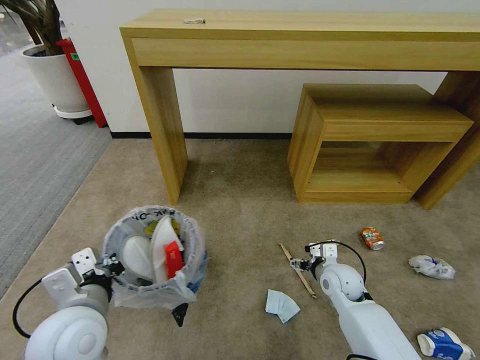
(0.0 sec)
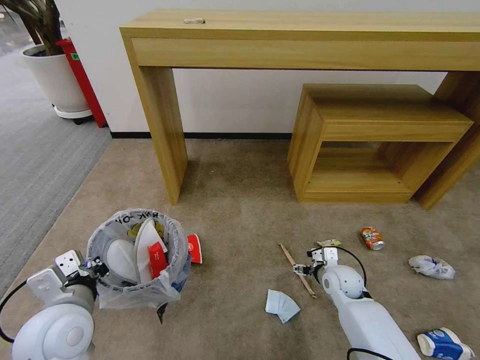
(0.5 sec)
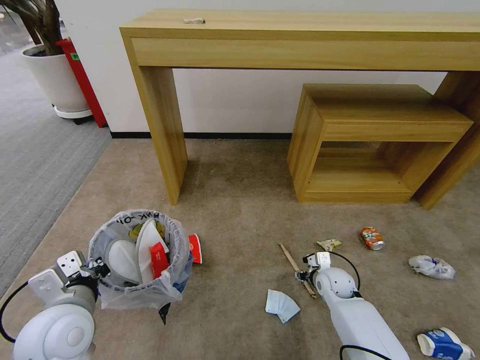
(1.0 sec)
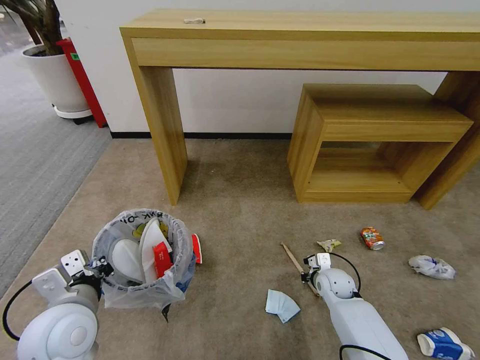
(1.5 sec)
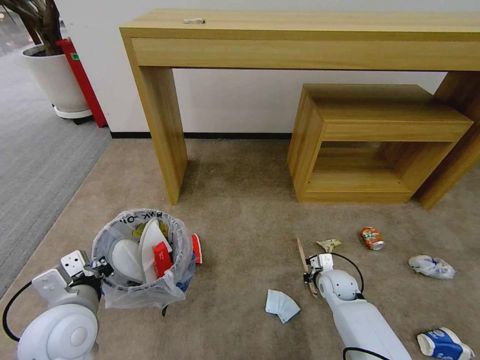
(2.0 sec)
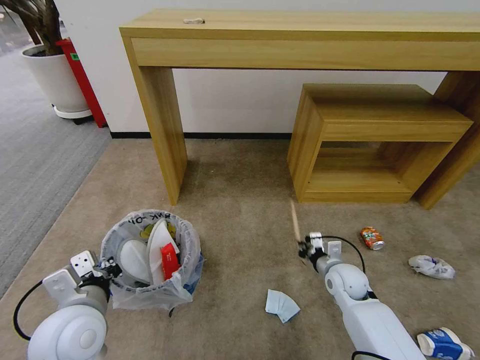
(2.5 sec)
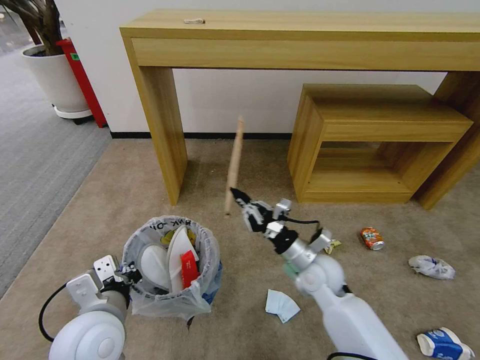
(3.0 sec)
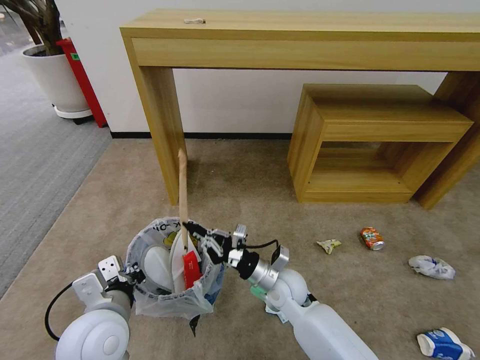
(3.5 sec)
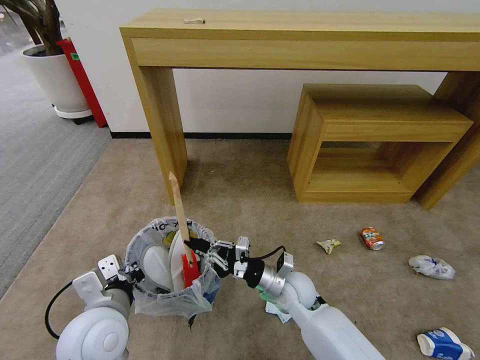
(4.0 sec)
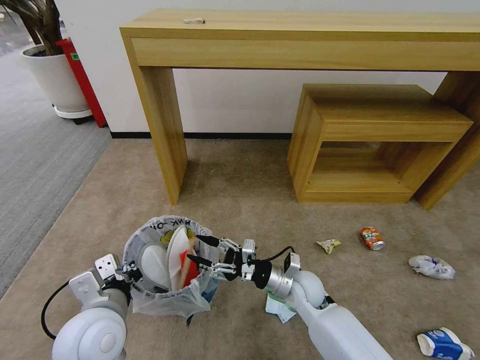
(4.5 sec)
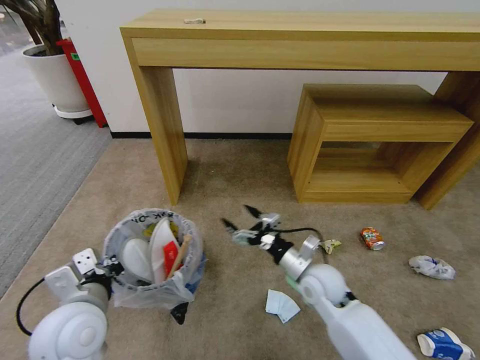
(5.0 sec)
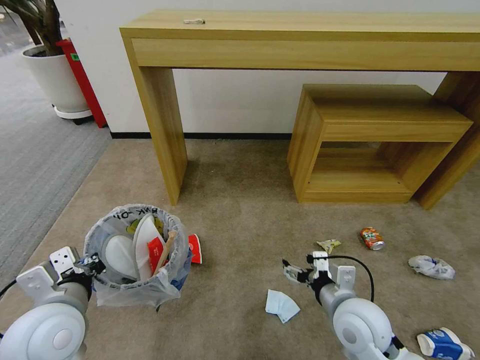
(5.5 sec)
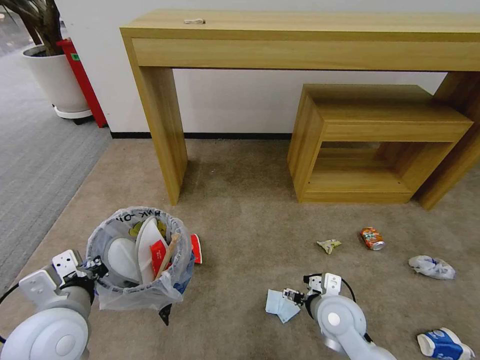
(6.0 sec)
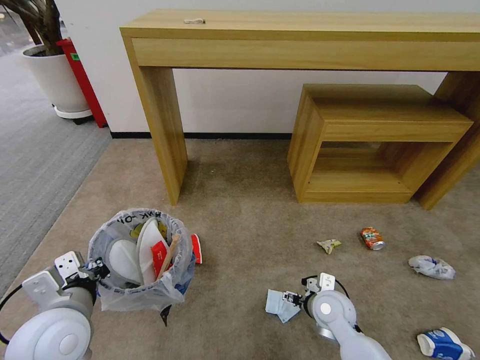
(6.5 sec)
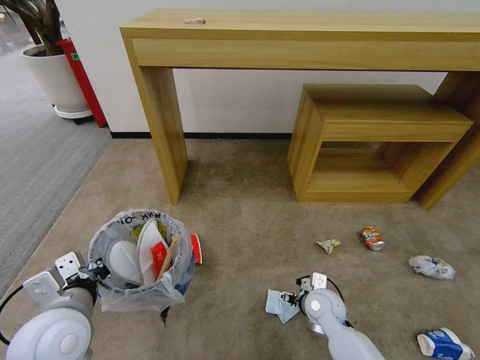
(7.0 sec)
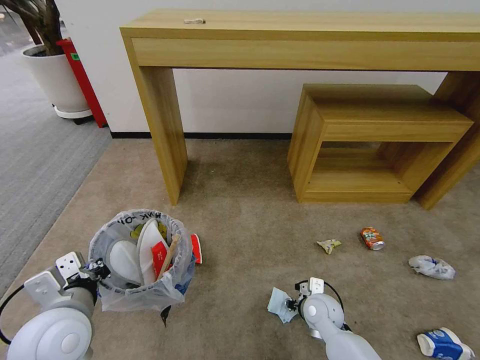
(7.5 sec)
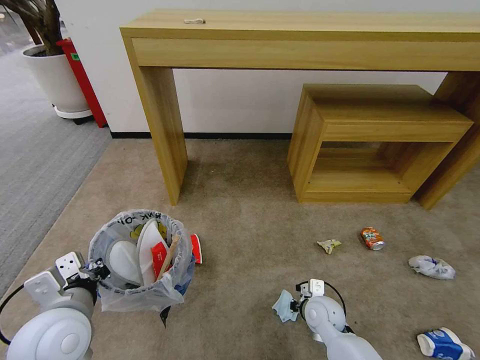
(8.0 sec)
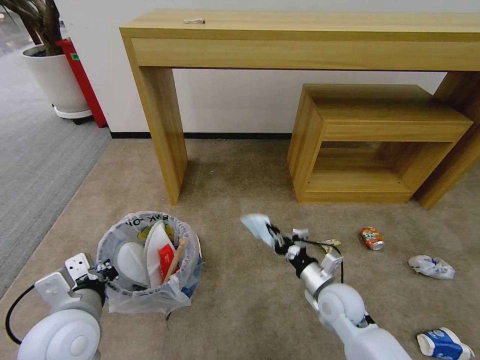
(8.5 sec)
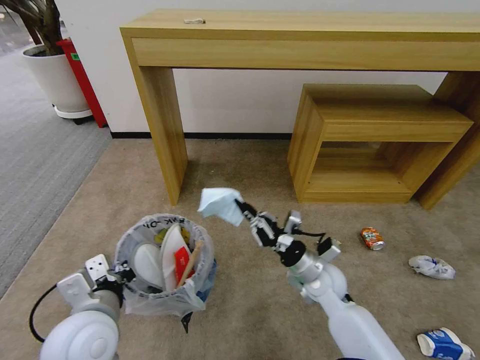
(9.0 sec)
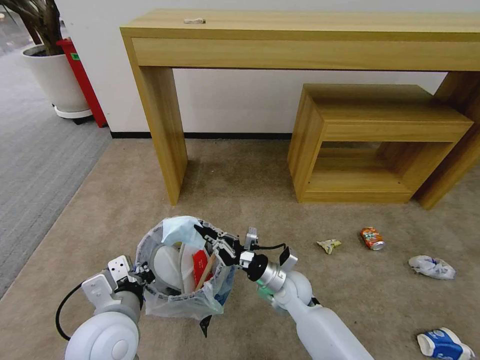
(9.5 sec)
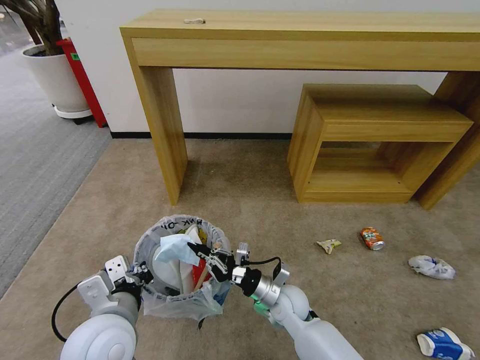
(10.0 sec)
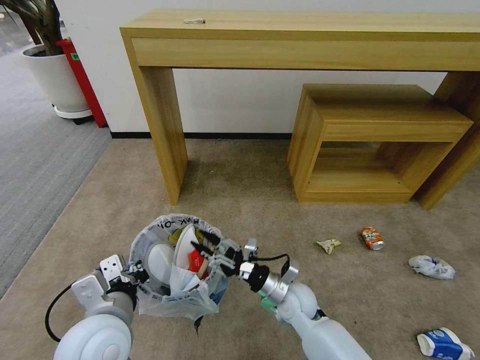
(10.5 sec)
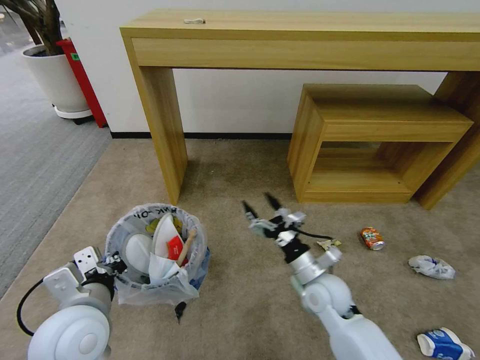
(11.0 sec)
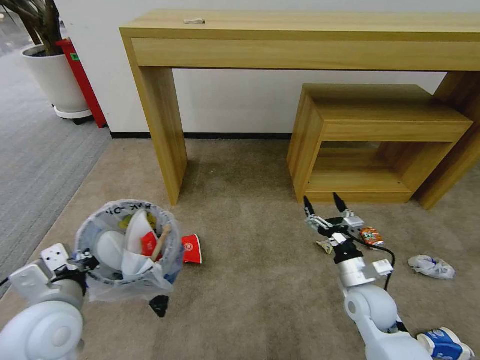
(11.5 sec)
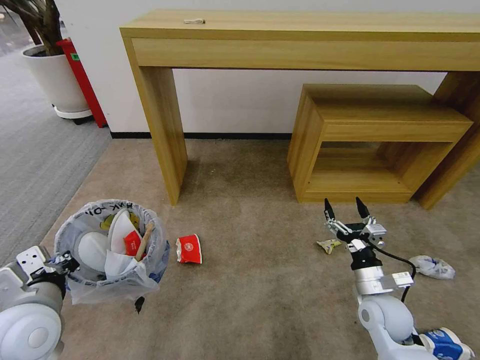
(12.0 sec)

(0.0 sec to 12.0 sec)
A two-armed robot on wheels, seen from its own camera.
Task of the whole recording: Pick up the trash bin and place the garbage on the floor into it.
0.0 sec - 2.0 sec: The right gripper heads downward, covering roughly 10 cm, and closes up.
2.0 sec - 4.0 sec: The right gripper is displaced to the left and upward by roughly 20 cm. Meanwhile the left gripper changes place by about 5 cm.
4.0 sec - 6.0 sec: The left gripper ends up roughly 5 cm from where it was, while the right gripper shifts some 10 cm to the right and backward, and opens.
6.0 sec - 8.0 sec: The right gripper goes roughly 10 cm downward, and closes.
8.0 sec - 10.0 sec: The right gripper travels to the left by about 10 cm. Meanwhile the left gripper goes about 5 cm to the right.
10.0 sec - 12.0 sec: The right gripper goes roughly 20 cm to the right, and opens. Meanwhile the left gripper goes about 10 cm to the left.

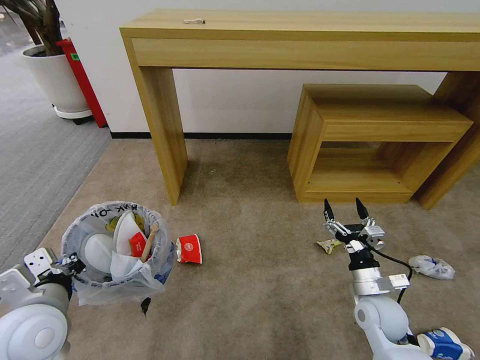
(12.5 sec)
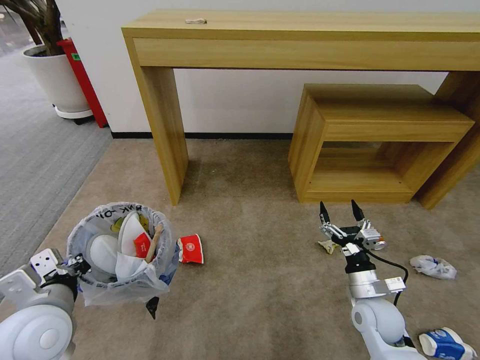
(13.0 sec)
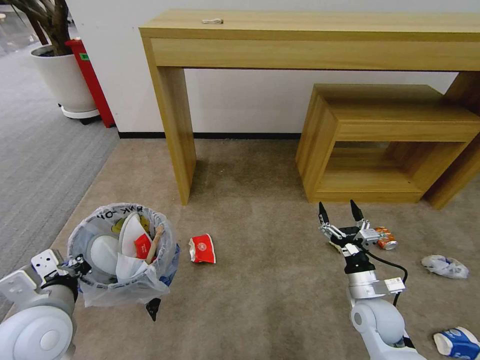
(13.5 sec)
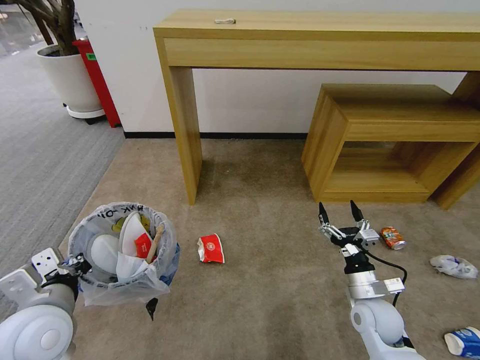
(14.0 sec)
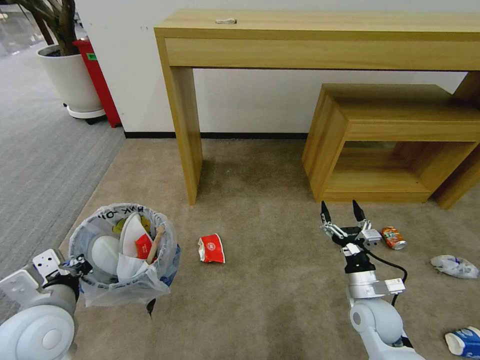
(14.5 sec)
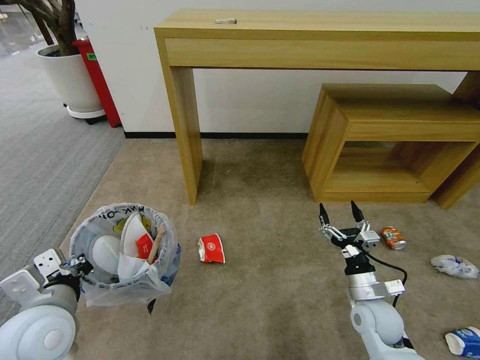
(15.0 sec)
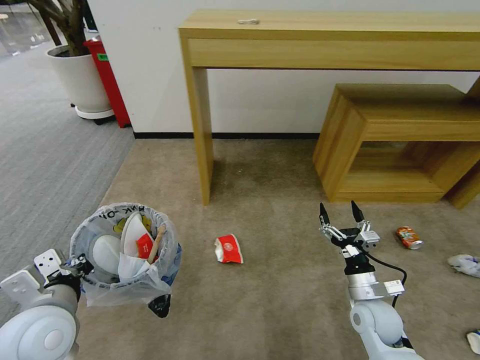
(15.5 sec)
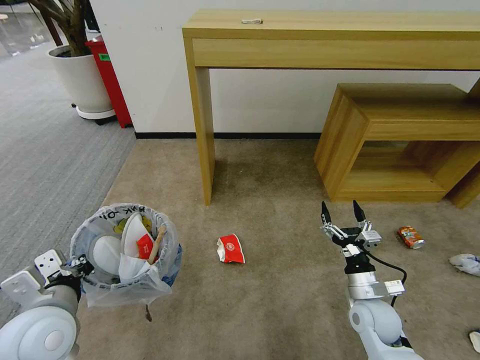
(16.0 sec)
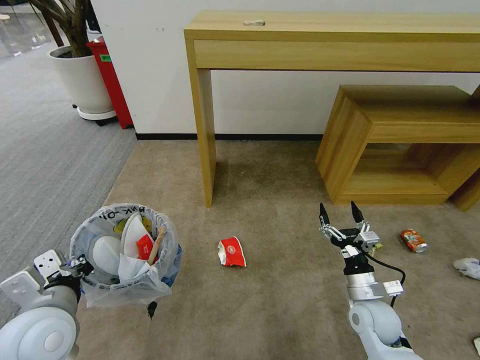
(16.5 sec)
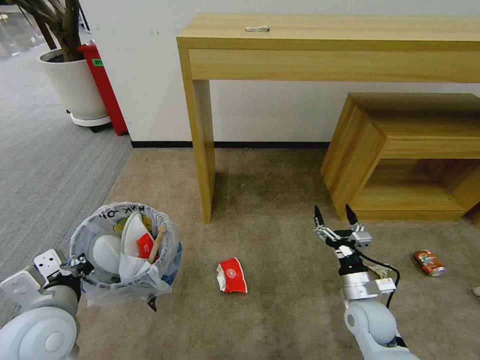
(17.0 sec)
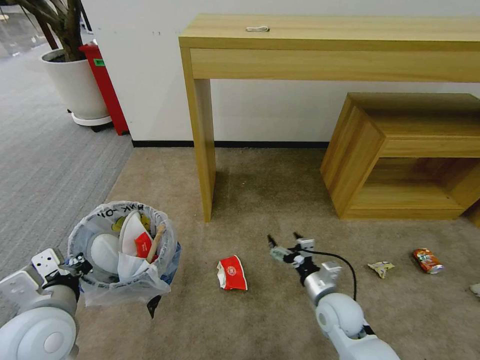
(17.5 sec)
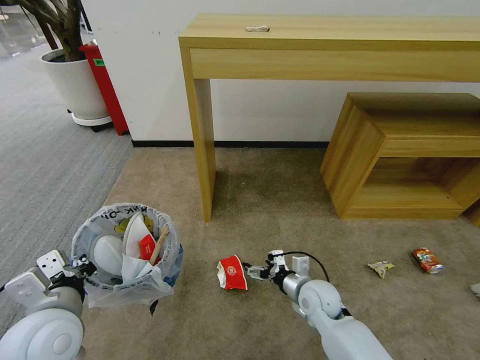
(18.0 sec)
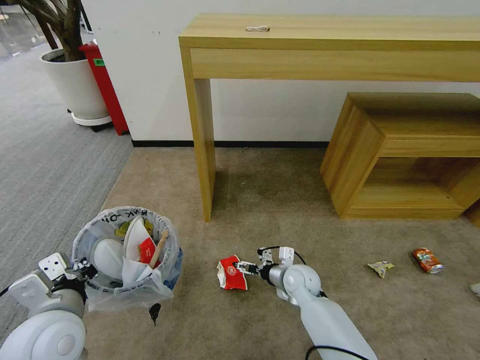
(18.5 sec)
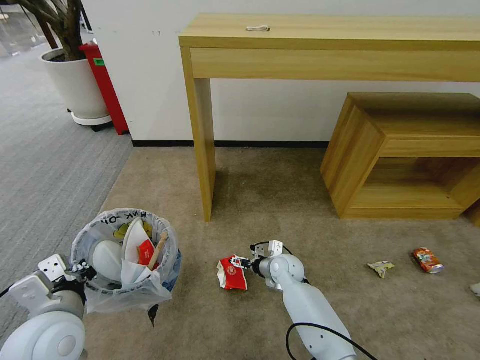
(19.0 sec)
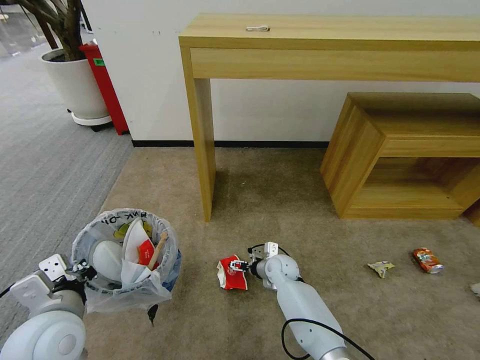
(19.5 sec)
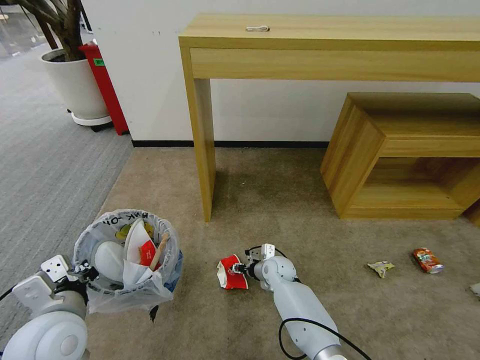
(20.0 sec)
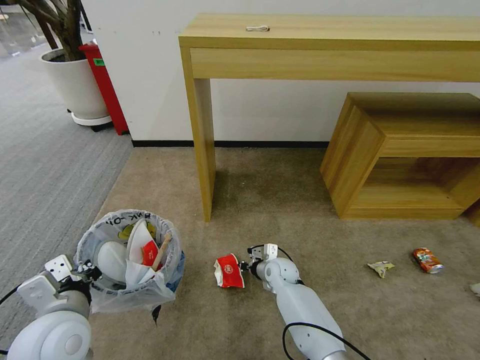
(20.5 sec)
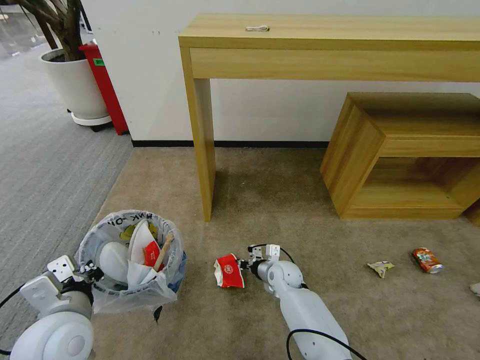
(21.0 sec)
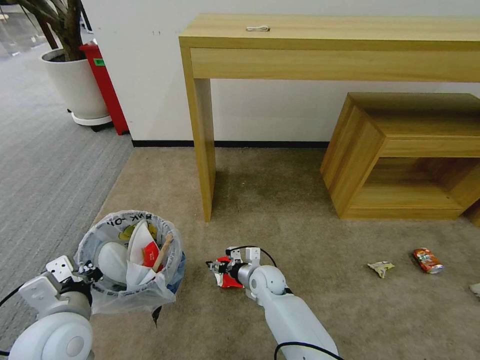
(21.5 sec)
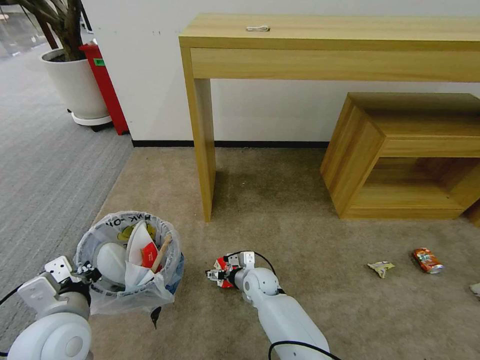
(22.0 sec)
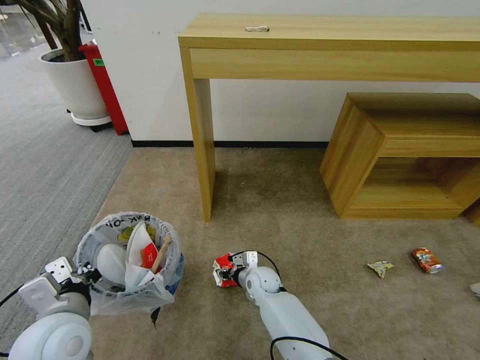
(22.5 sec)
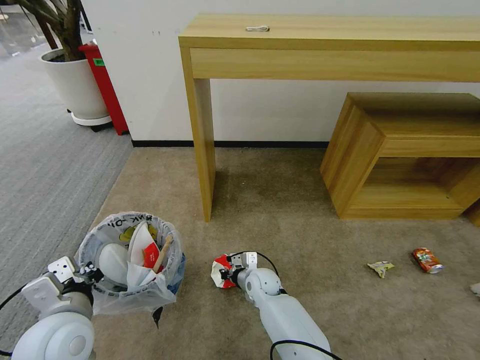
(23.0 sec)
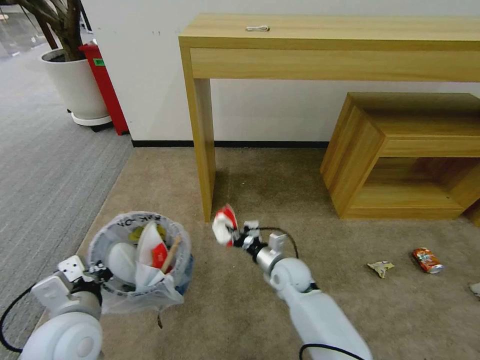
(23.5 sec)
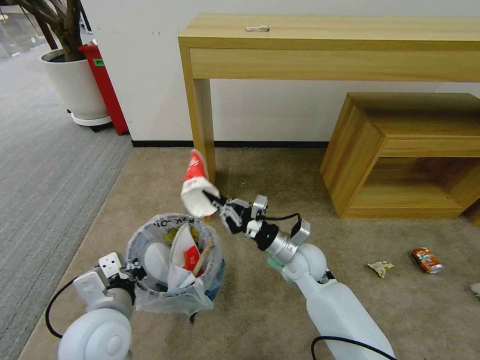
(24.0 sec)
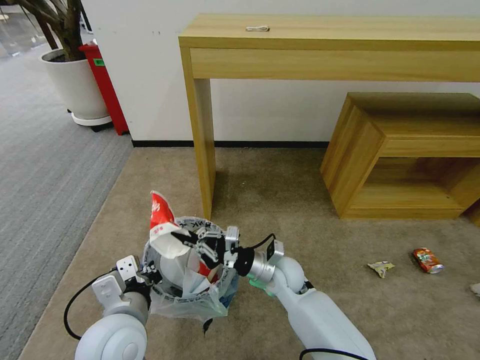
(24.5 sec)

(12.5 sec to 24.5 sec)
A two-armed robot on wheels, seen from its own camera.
Task of the whole recording: Pick up the trash bin and place the garbage on the floor into it.
14.5 sec - 16.5 sec: Neither gripper changes place.
16.5 sec - 18.5 sec: The right gripper goes roughly 20 cm to the left and forward.
18.5 sec - 20.5 sec: The right gripper travels downward by about 5 cm, and closes its fingers.
20.5 sec - 22.5 sec: The right gripper travels to the left by some 5 cm, and opens up.
22.5 sec - 24.5 sec: The right gripper shifts about 10 cm upward, and closes. The left gripper shifts roughly 10 cm to the right.

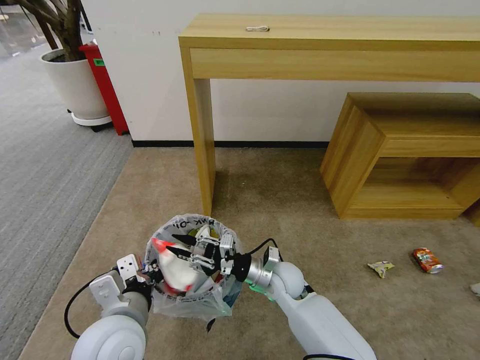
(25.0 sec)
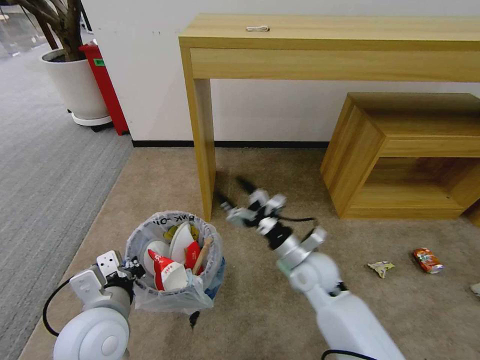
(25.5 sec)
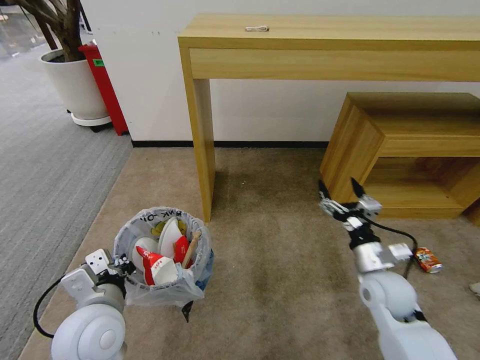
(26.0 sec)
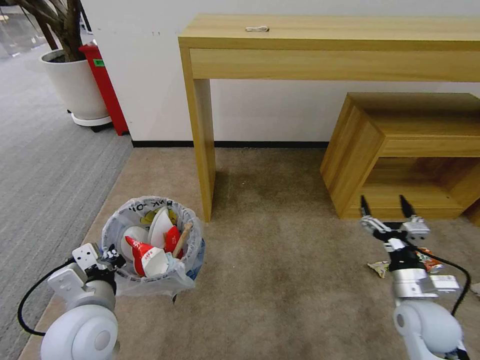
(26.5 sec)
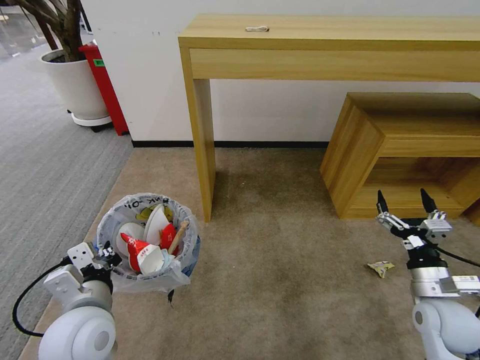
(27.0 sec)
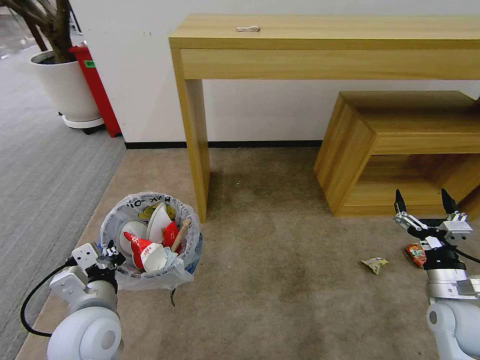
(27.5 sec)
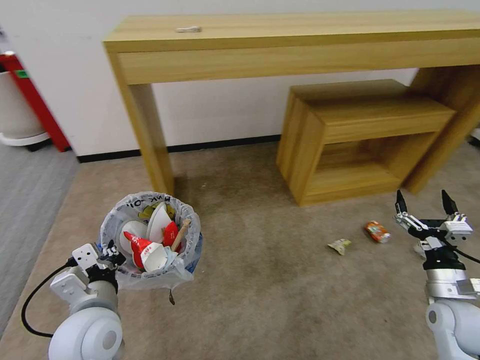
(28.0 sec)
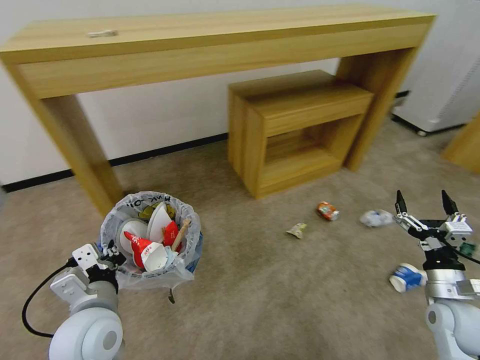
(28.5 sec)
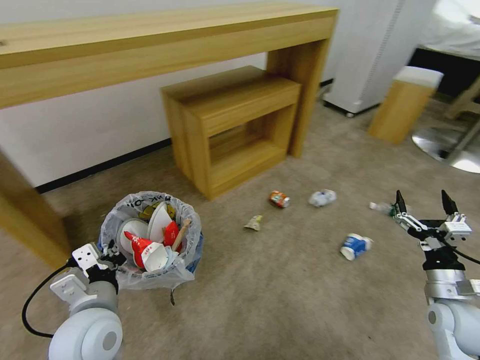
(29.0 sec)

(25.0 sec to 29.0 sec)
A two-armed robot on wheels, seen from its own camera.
Task of the whole recording: Pick up the trash bin and place the garbage on the floor into it.
25.0 sec - 27.0 sec: The left gripper shifts roughly 5 cm to the left, while the right gripper travels to the right by approximately 30 cm, and opens up.
